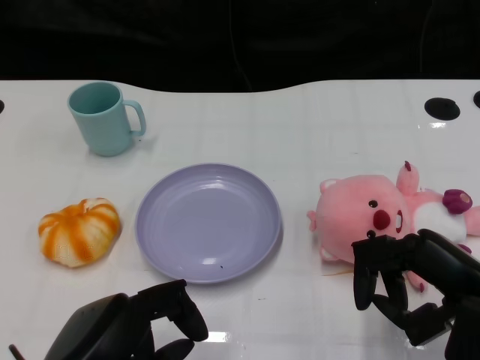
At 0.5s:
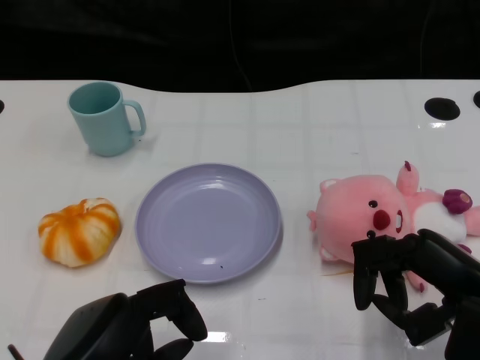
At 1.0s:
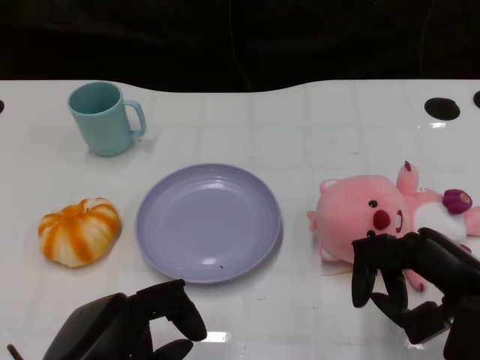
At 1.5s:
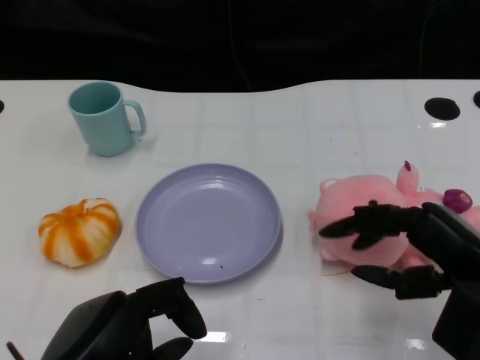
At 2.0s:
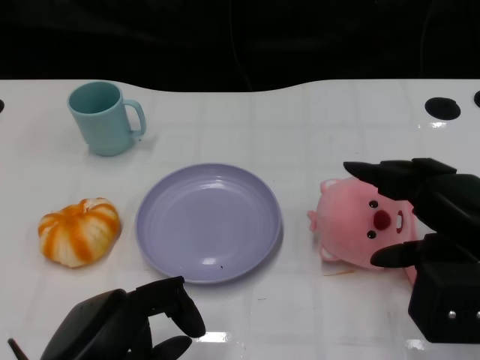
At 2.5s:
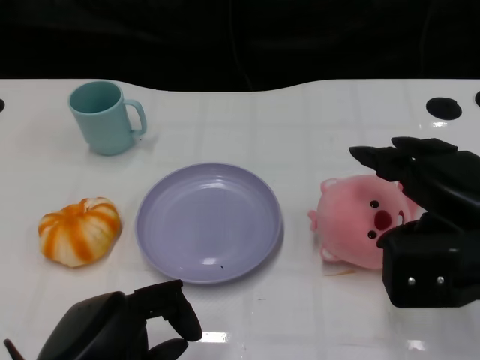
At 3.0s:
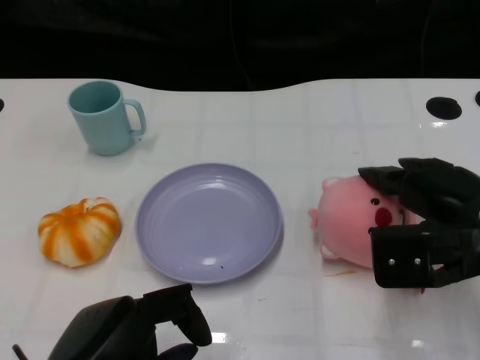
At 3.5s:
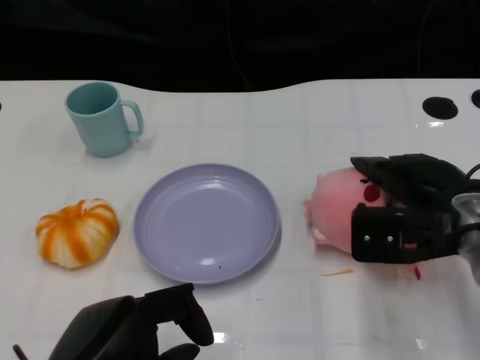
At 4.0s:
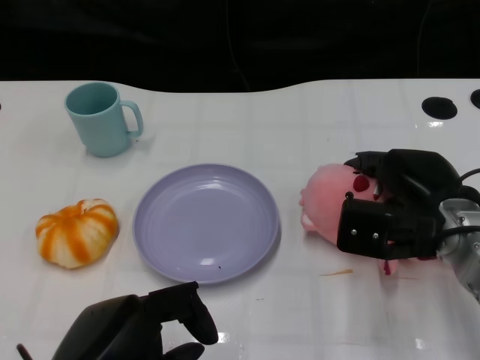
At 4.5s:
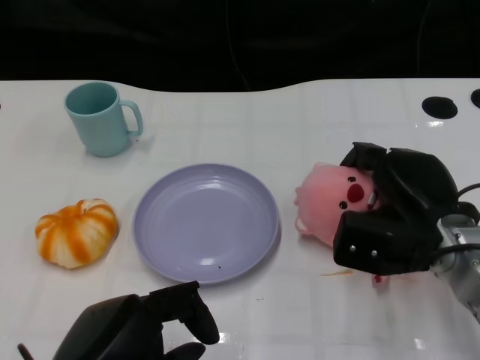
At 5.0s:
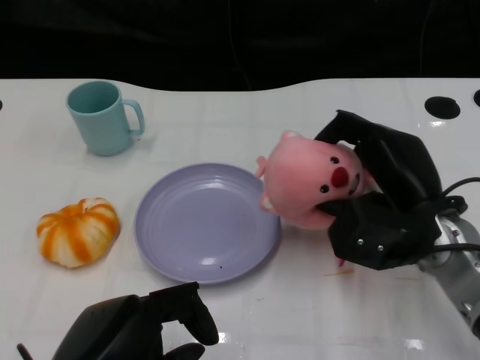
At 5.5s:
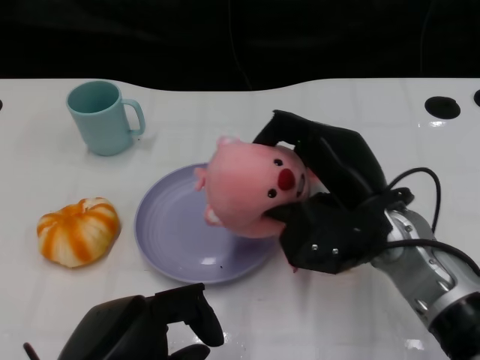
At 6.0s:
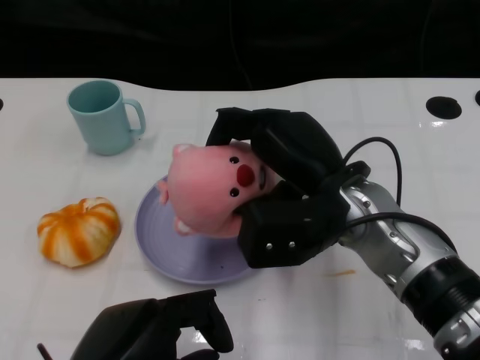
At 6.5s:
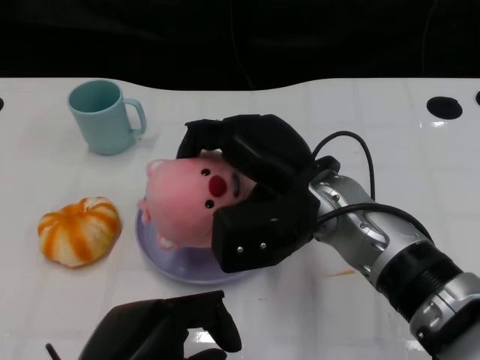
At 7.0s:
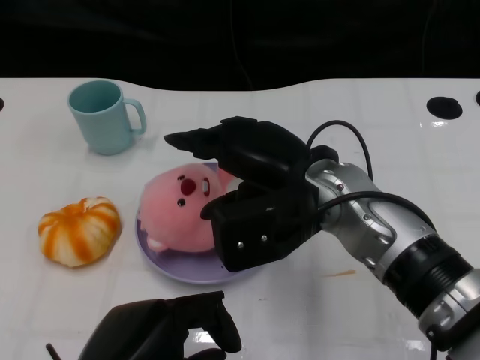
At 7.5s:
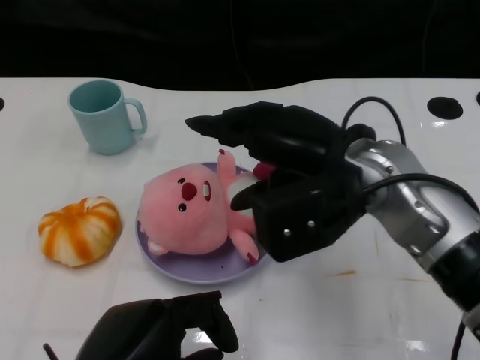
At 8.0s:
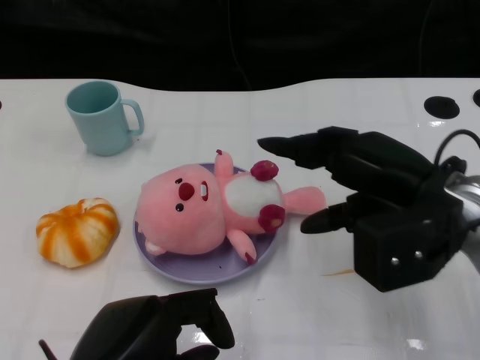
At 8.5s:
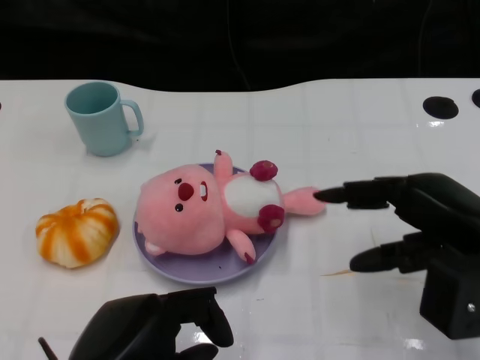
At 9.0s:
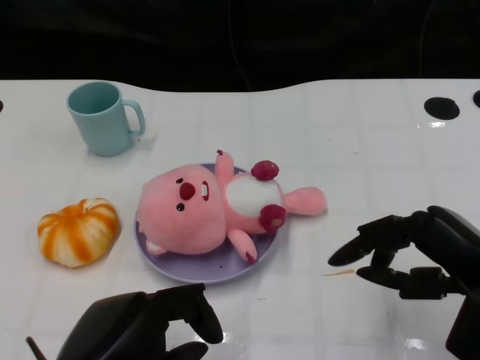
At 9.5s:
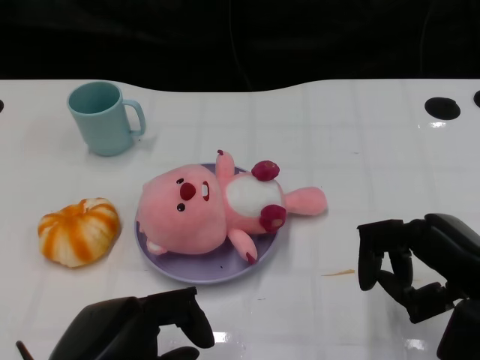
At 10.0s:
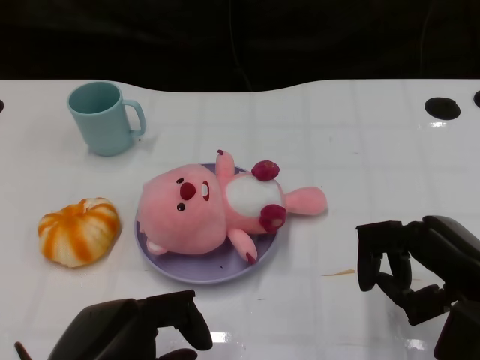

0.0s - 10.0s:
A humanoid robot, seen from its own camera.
Task of the whole recording: Pick up the doll on the other side of the plate and place it into the plate.
Step, 1.0s - 5.5s: Grasp the pink doll with the right gripper.
Step, 6.0s - 7.5s: Place the pink doll into the plate with the right gripper.
2.0s - 4.0s: The right hand travels forward and downward by some 10 cm.
4.0s - 6.0s: The right hand travels to the left and upward by roughly 10 cm.
6.0s - 8.0s: The right hand moves to the right, roughly 10 cm.
8.0s - 10.0s: The right hand goes about 10 cm backward, to the right and downward.

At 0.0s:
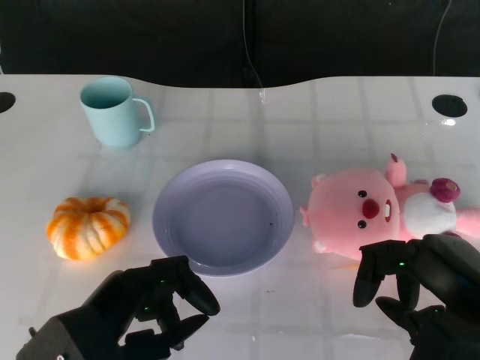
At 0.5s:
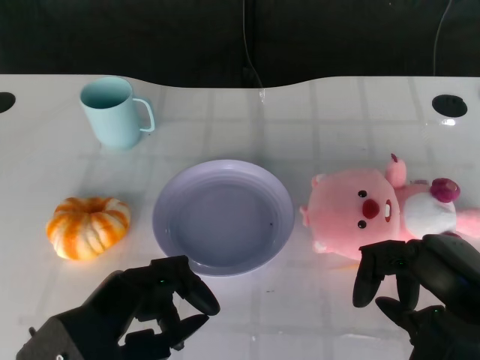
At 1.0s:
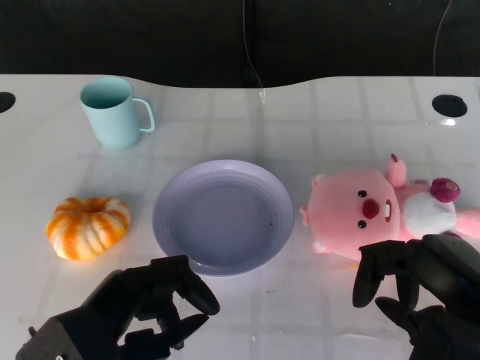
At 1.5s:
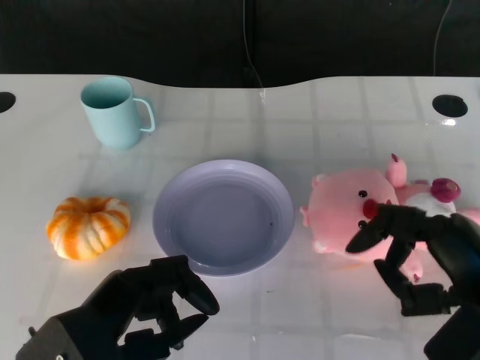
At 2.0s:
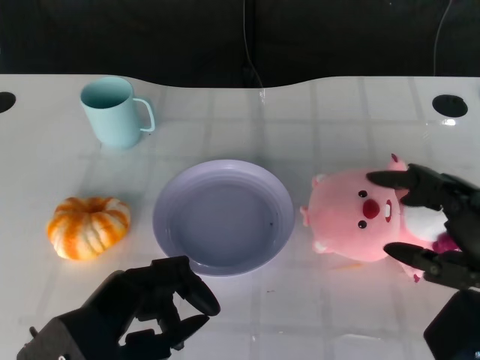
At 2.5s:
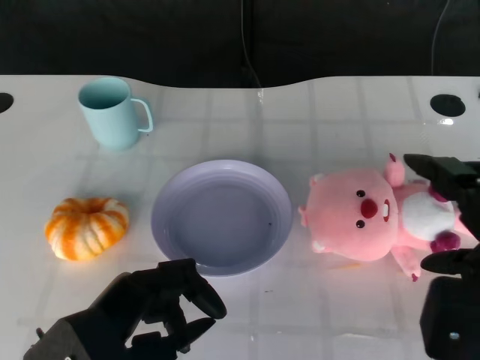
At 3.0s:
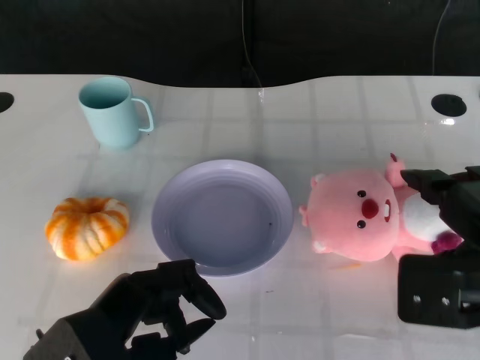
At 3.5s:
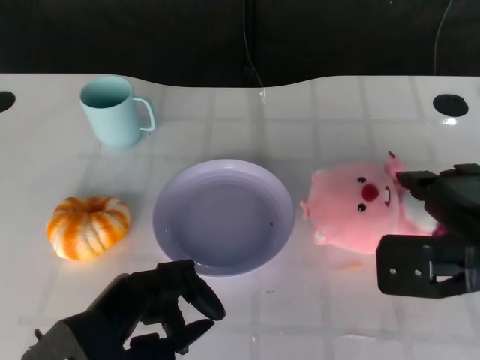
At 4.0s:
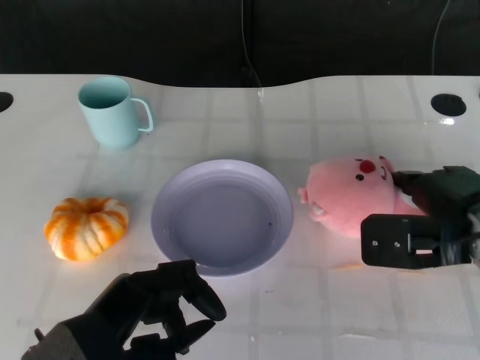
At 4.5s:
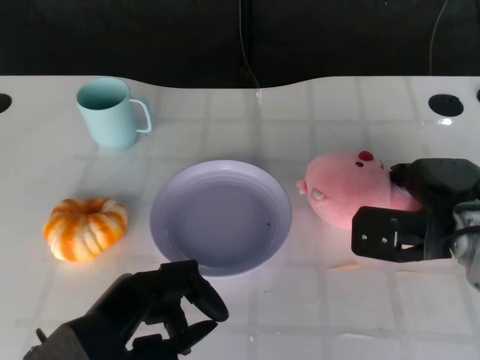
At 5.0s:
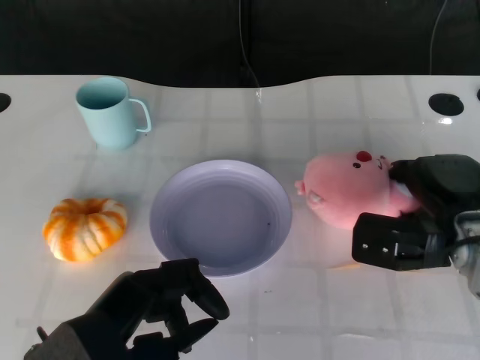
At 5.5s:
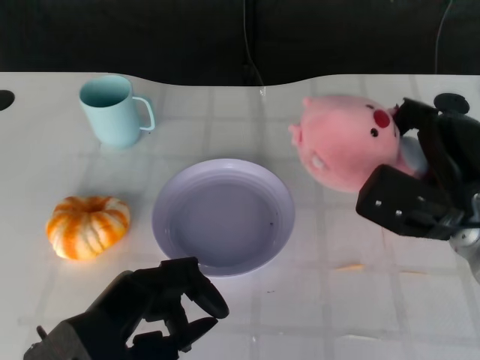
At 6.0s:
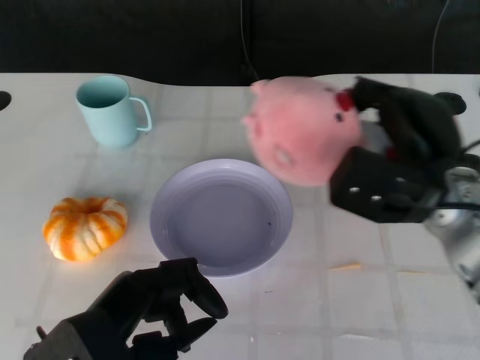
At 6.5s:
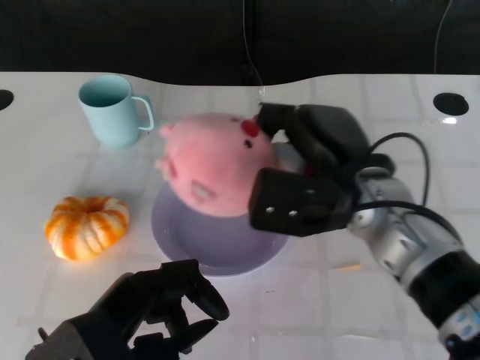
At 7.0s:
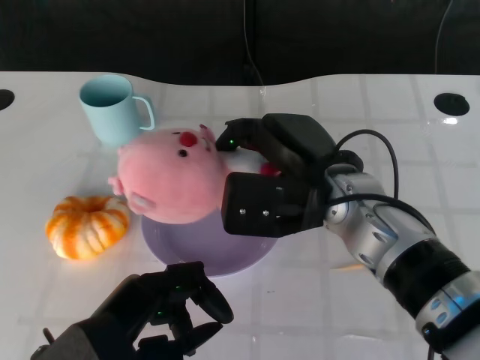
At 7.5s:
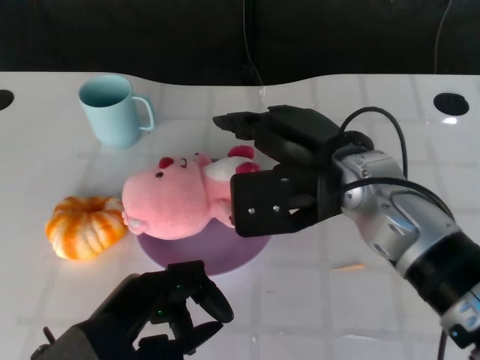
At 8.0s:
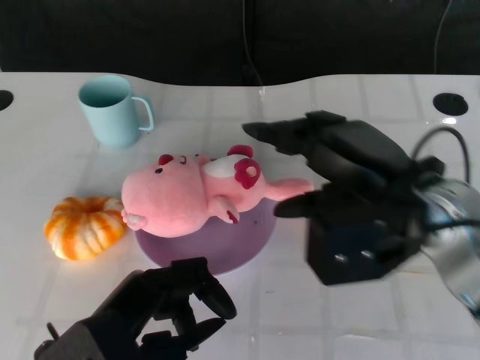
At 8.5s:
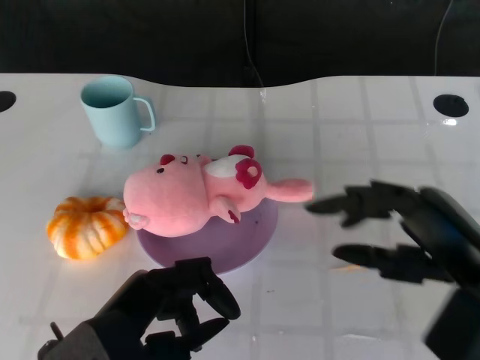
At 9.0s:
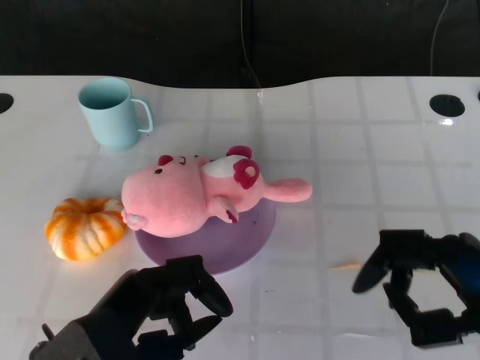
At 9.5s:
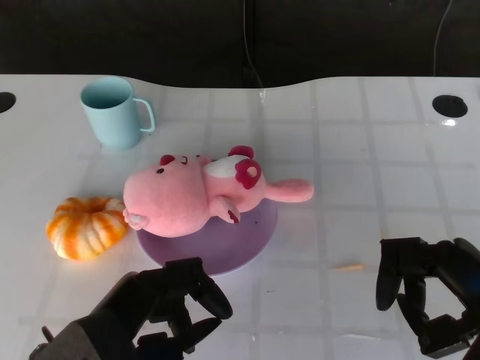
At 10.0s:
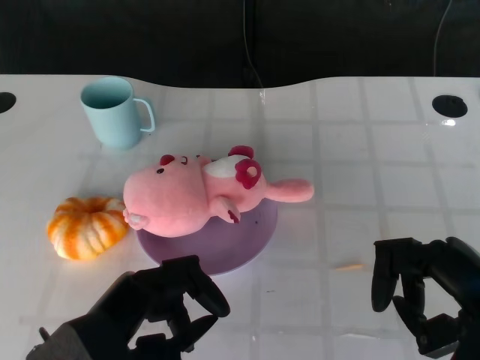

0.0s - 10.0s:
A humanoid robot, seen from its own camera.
Task of the whole recording: Pick up the doll on the other side of the plate and place it into the plate.
Step, 1.5s - 5.0s: Grasp the pink doll with the right gripper.
Step, 5.5s - 7.5s: Place the pink doll into the plate with the right gripper.
2.0s - 4.0s: The right hand is displaced forward by approximately 10 cm.
4.0s - 6.0s: The right hand moves roughly 5 cm.
6.0s - 8.0s: The right hand reaches some 10 cm to the left, then returns.
8.0s - 10.0s: The right hand shifts some 15 cm backward, to the right and downward.

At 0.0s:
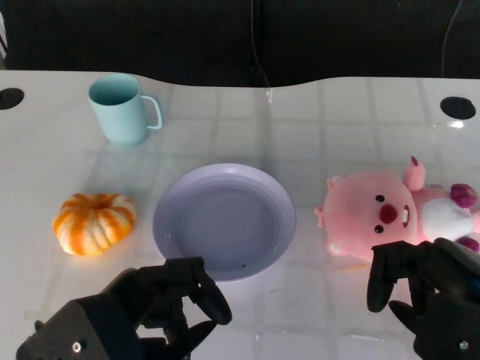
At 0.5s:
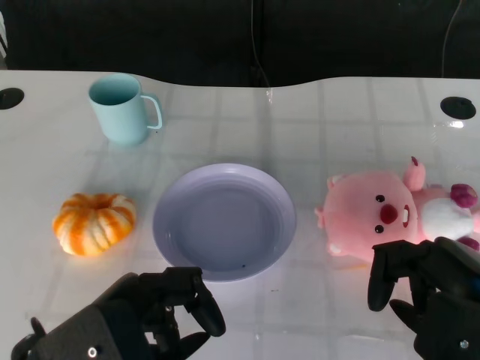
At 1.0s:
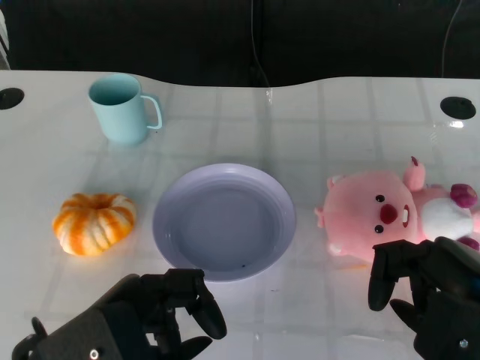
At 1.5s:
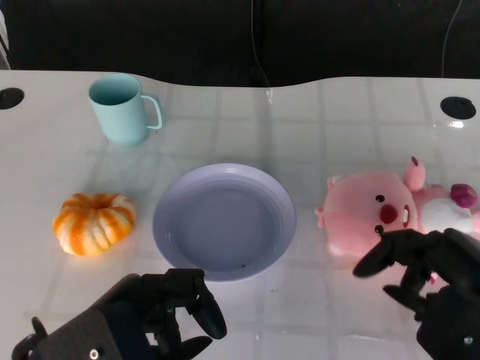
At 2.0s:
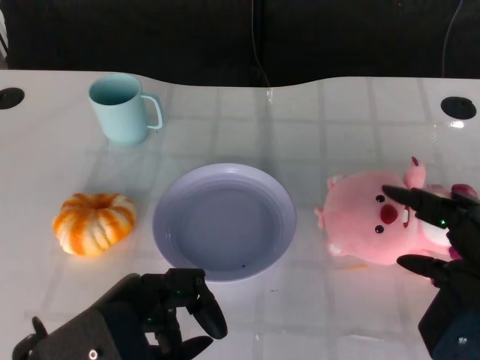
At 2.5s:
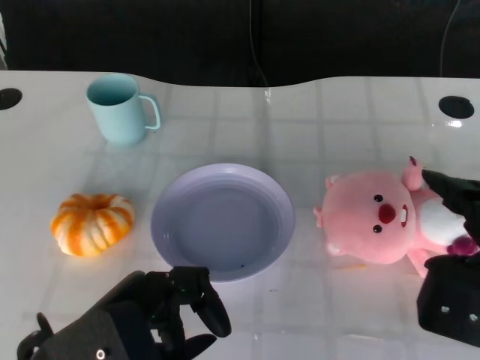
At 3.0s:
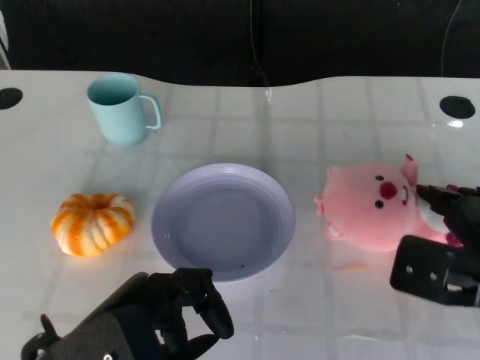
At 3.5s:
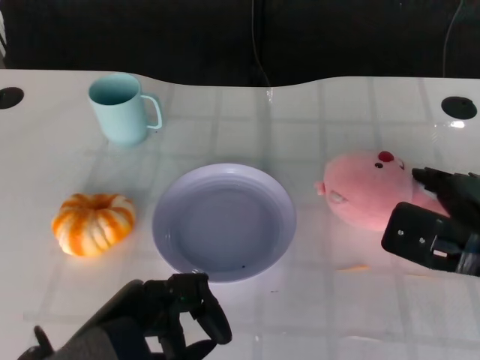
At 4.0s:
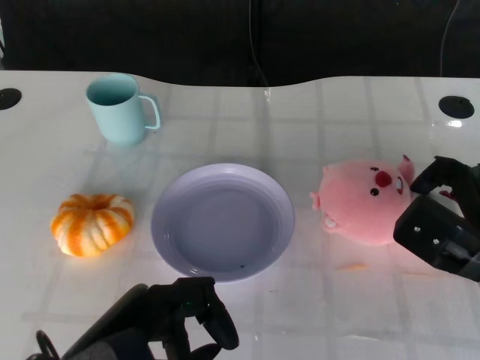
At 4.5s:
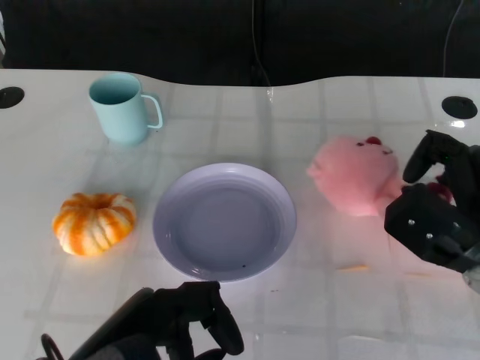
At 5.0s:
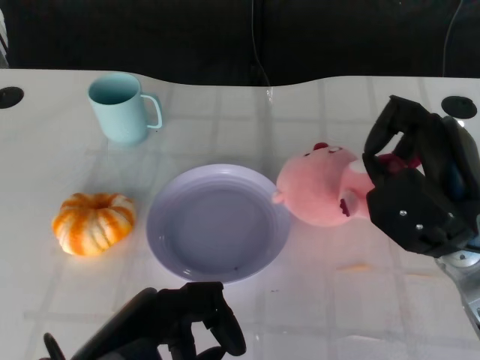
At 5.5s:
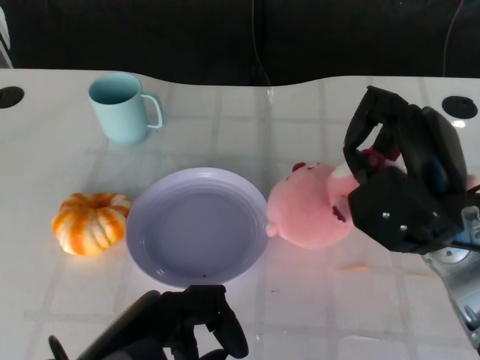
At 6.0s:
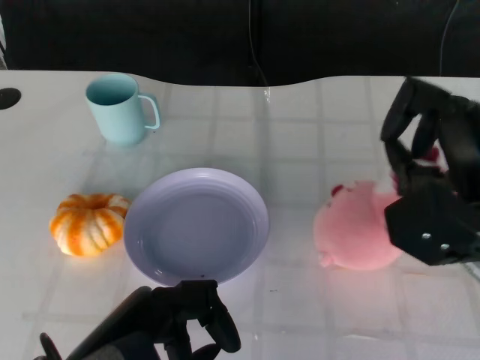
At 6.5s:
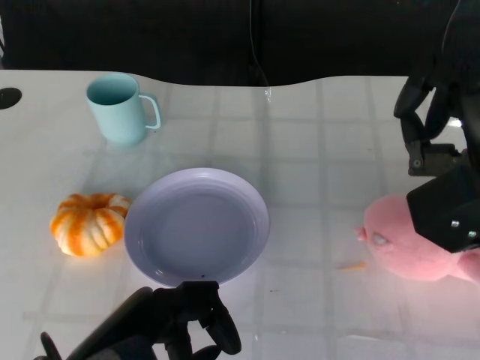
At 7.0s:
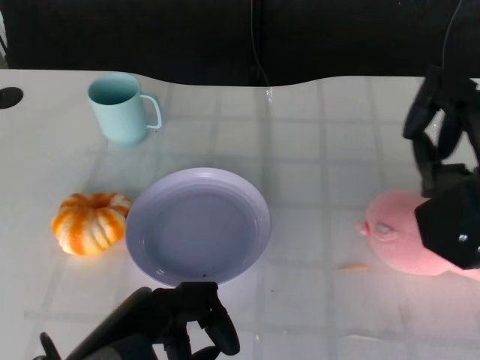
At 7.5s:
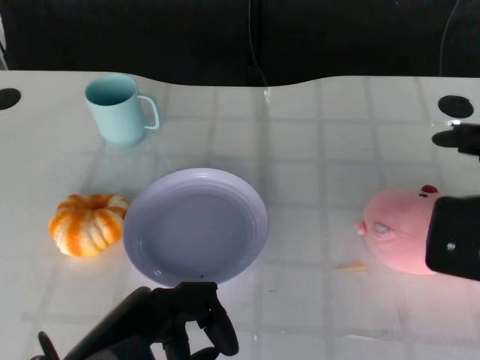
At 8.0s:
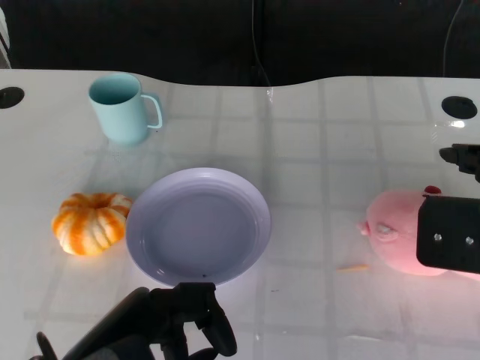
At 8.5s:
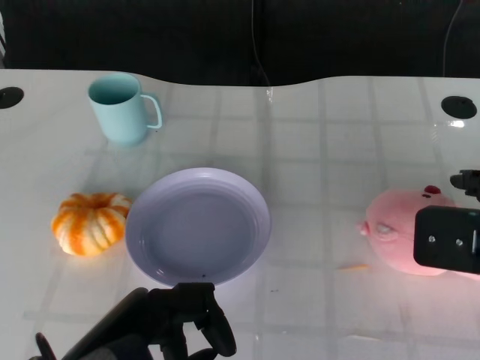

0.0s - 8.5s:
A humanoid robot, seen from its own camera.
Task of the whole recording: Pick up the doll on the other side of the plate and place it into the plate.
2.0s - 4.0s: The right hand goes about 10 cm forward and downward.
4.0s - 6.5s: The right hand travels upward by some 10 cm.
